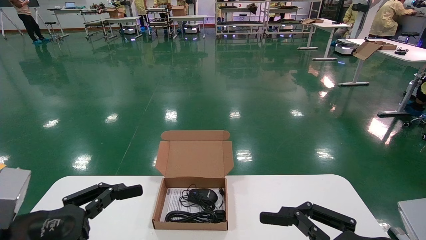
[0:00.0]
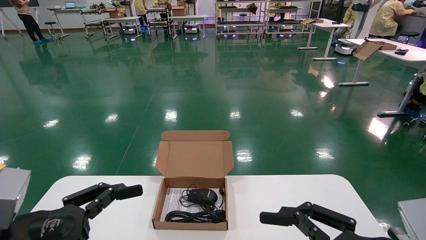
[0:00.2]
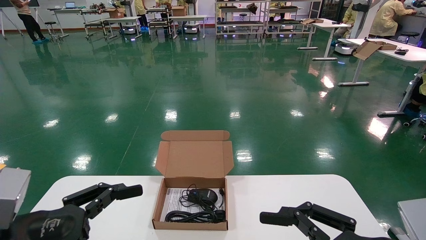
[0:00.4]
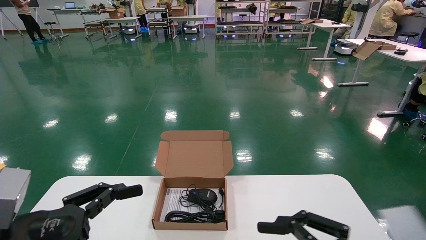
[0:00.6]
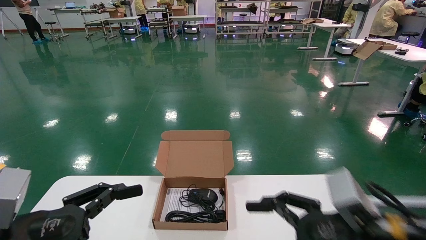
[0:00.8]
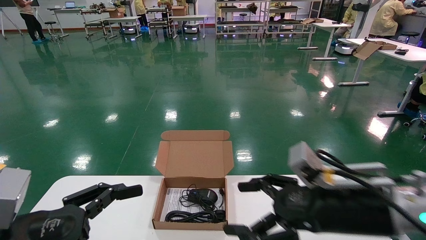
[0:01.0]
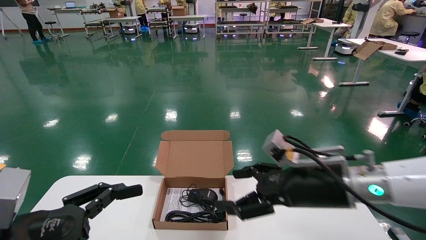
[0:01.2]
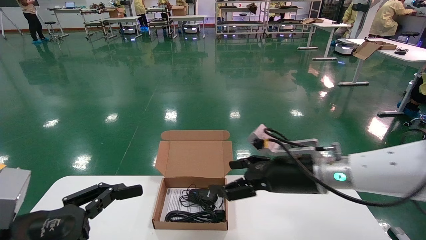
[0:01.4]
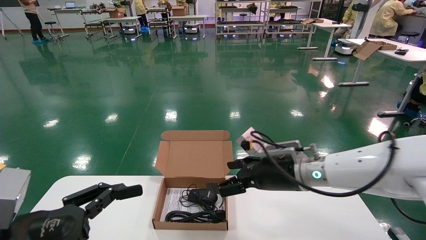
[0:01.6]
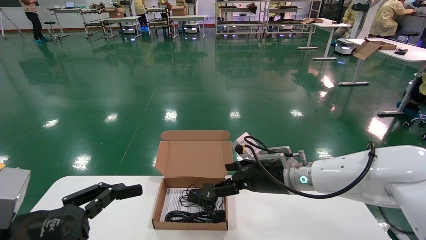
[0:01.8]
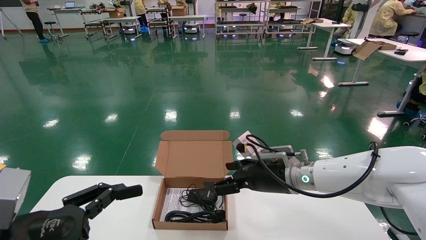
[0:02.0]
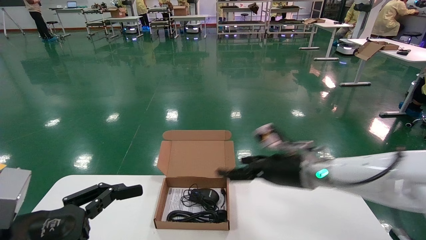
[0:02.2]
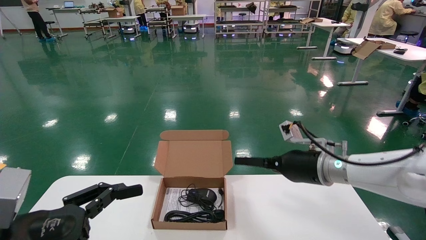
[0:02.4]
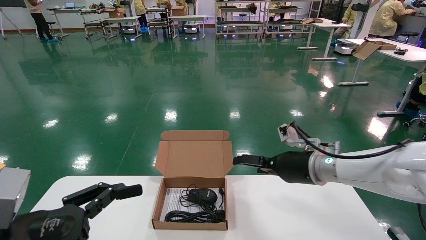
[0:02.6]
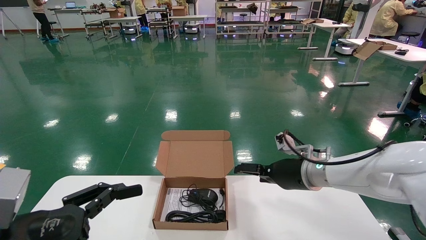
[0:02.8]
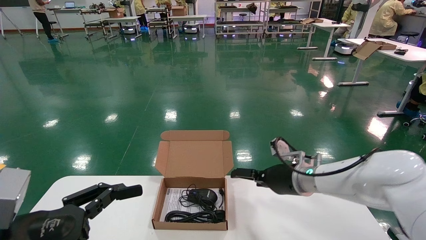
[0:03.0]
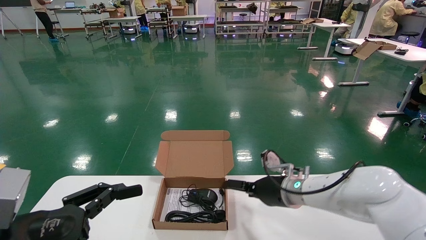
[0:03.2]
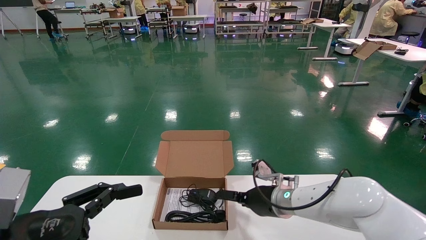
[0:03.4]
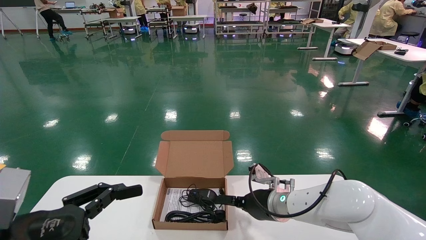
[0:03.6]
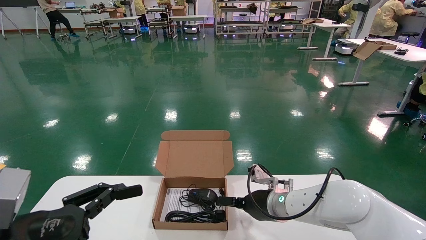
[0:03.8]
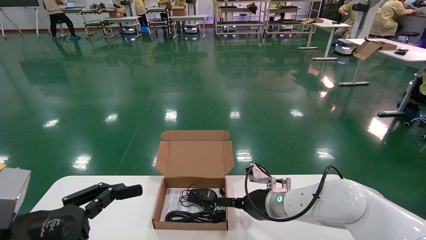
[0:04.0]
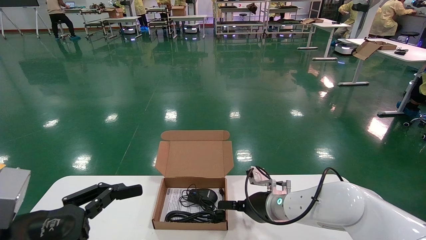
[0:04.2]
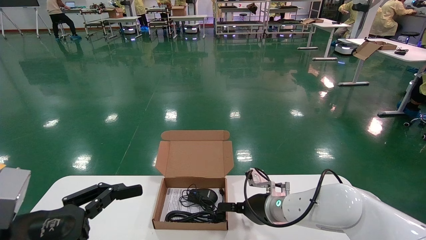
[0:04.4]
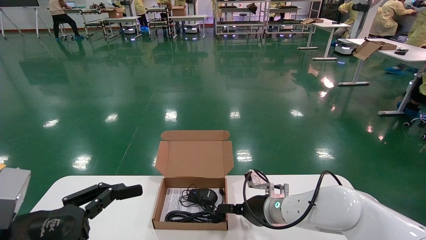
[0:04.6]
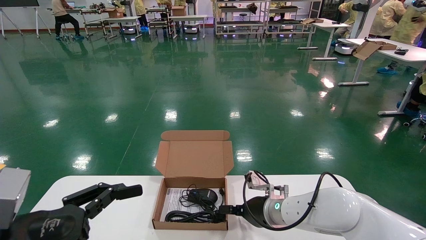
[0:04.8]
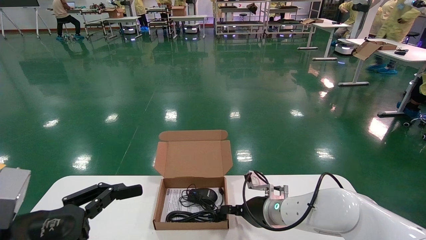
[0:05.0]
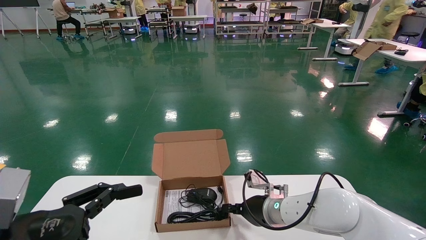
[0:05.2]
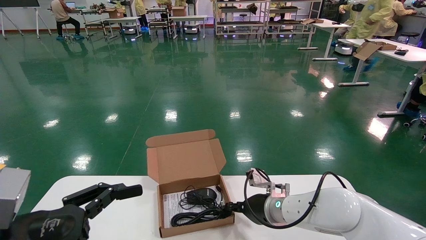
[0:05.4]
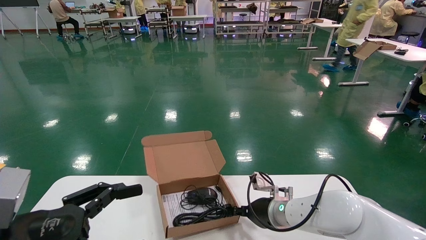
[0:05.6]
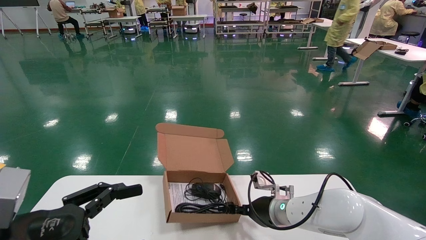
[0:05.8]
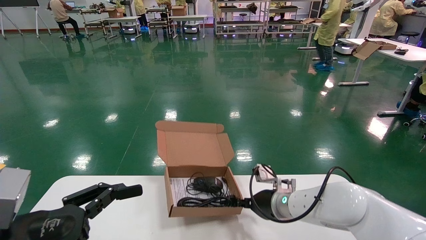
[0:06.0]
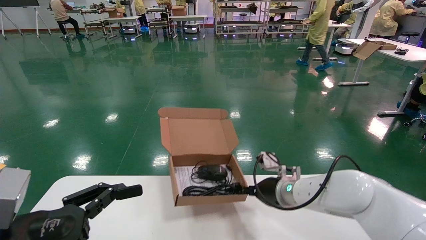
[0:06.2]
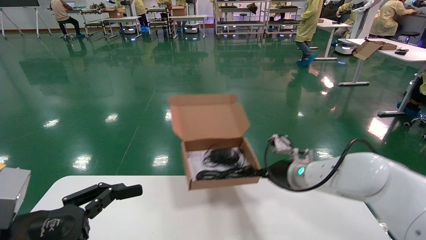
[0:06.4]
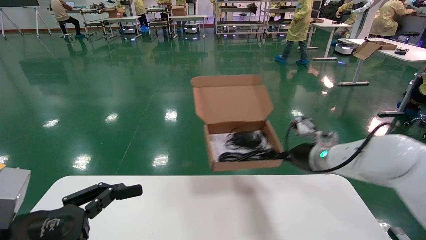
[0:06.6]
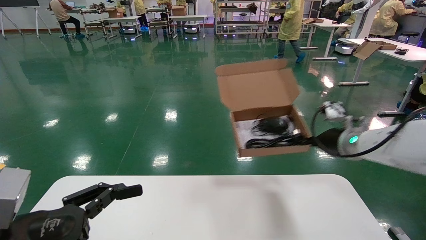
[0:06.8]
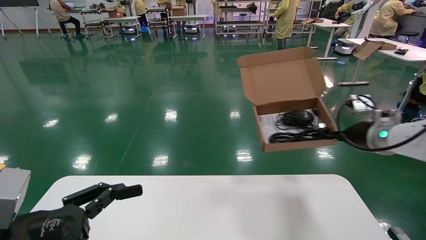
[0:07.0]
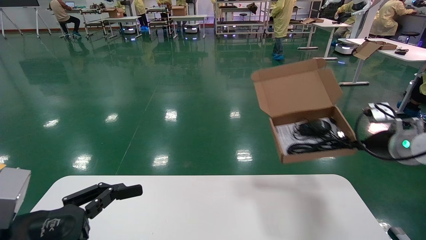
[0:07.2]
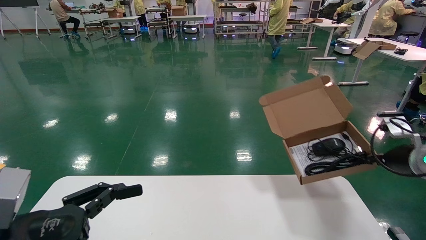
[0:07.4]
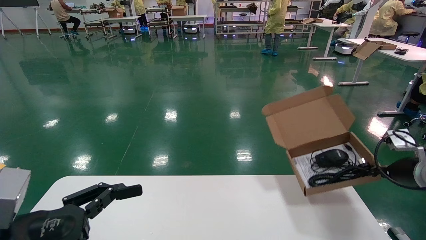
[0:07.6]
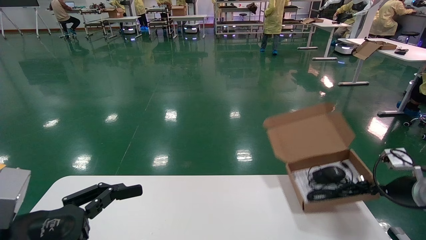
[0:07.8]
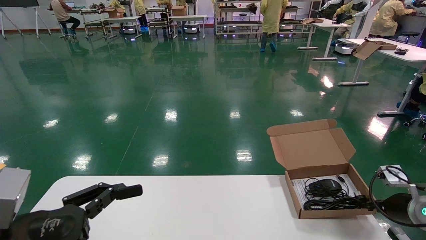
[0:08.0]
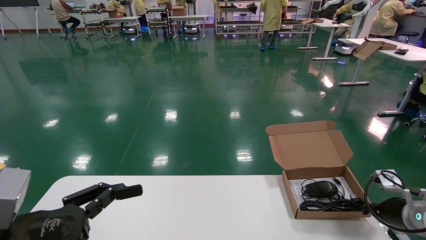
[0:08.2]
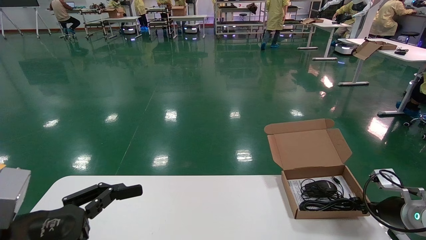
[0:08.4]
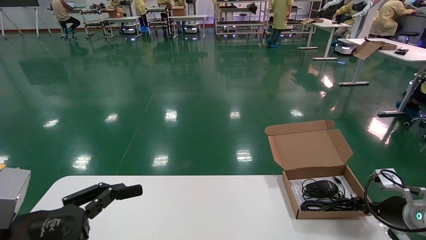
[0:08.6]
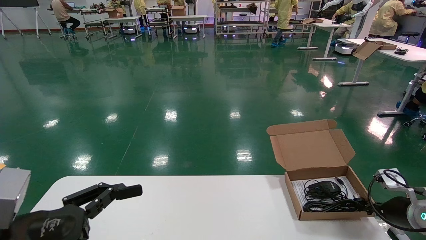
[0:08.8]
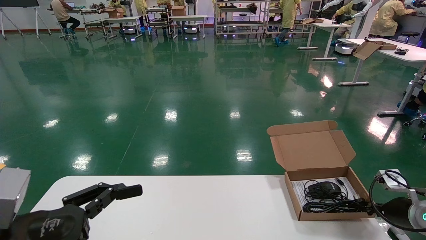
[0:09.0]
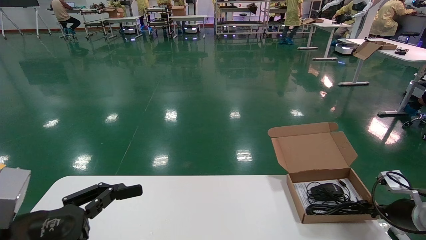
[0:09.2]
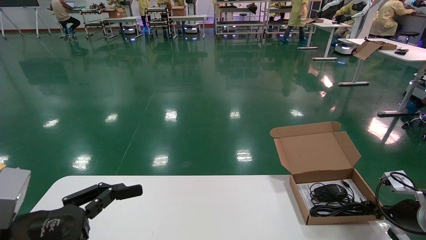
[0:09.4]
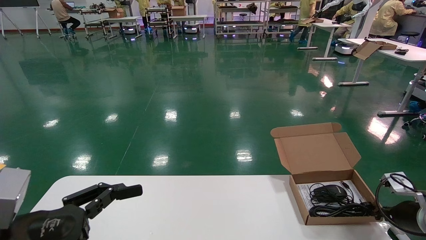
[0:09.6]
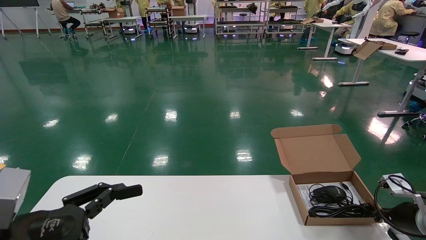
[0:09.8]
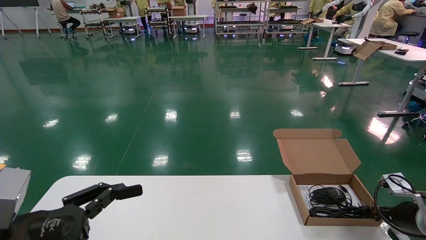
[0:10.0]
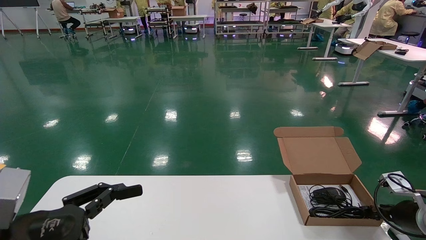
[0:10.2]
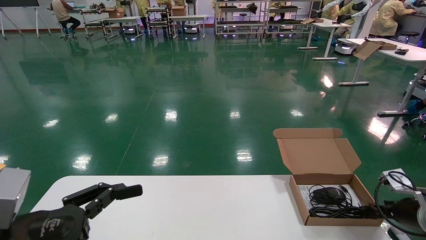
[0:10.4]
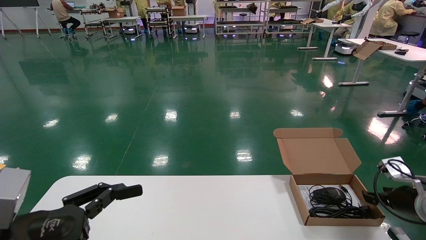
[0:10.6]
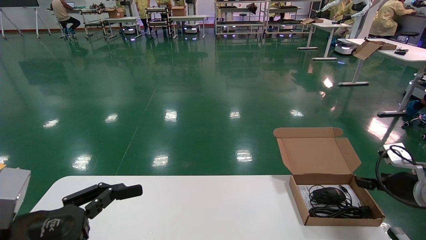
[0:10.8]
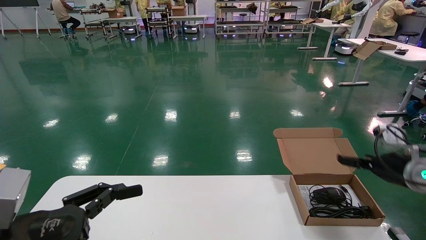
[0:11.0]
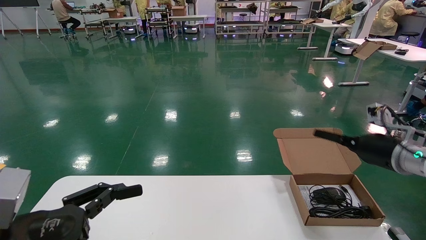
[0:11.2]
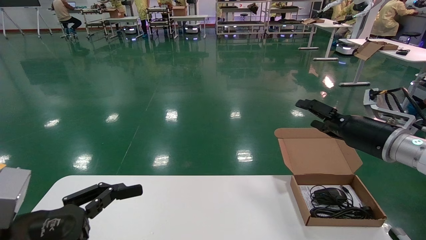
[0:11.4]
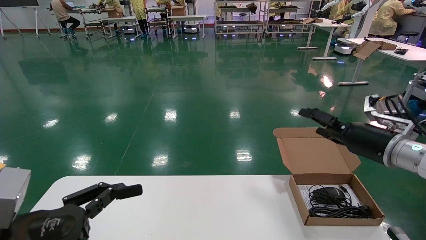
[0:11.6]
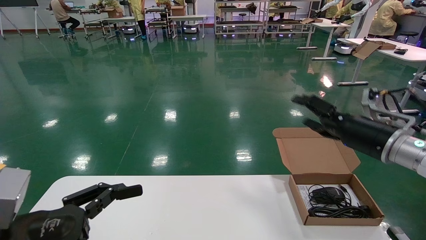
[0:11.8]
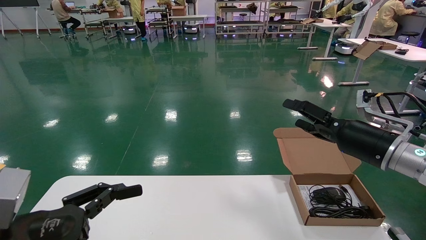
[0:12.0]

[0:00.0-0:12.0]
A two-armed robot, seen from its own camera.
Task of the whole recording: move the position of the storage box with accessories on the table.
Step, 0:00.8 to 0:05.8: Grab and pick up the open mouse box from the accessory packaging area.
Step, 0:06.0 to 0:10.4: Place the open mouse box onto the operation table.
0:00.0 to 0:01.6: The right gripper shifts some 25 cm forward and to the left.
0:01.6 to 0:03.0: The right gripper goes about 5 cm forward.
0:03.0 to 0:04.4: The right gripper is displaced downward and to the left by some 10 cm.
0:04.4 to 0:06.0: The right gripper closes.
0:06.0 to 0:07.6: The right gripper goes some 30 cm to the right.
0:07.6 to 0:09.0: The right gripper shifts approximately 10 cm downward.
0:09.0 to 0:10.4: The grippers stay close to where they were, moving slightly.
0:10.4 to 0:12.0: The right gripper heads to the left and upward, covering roughly 20 cm, and opens up.

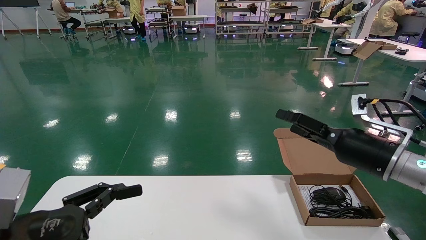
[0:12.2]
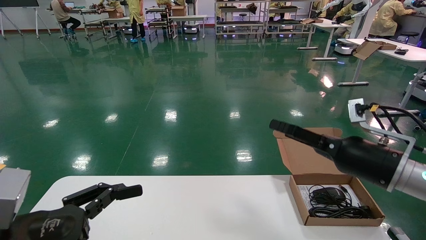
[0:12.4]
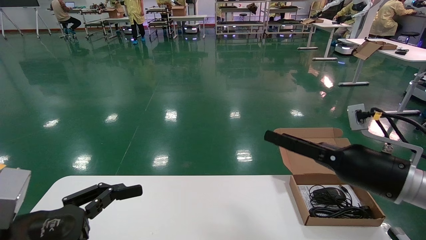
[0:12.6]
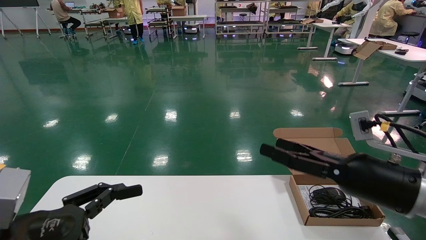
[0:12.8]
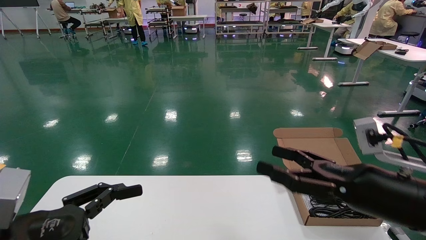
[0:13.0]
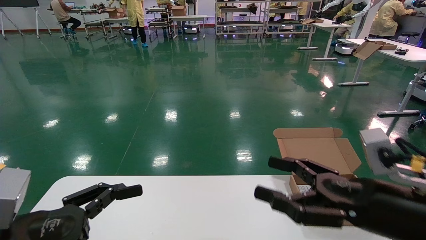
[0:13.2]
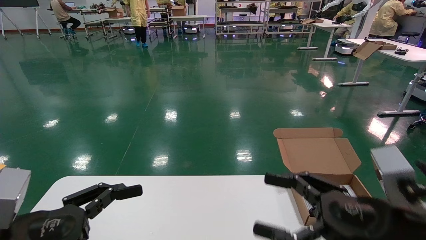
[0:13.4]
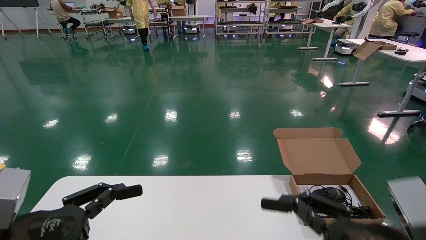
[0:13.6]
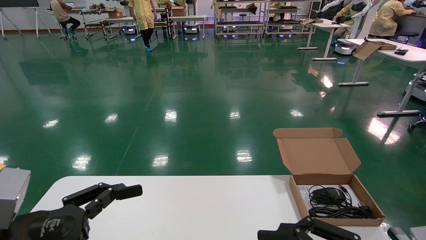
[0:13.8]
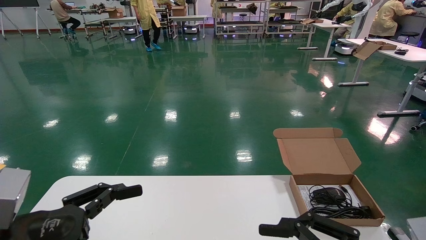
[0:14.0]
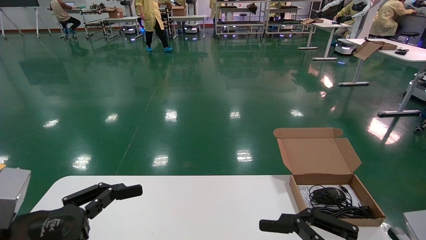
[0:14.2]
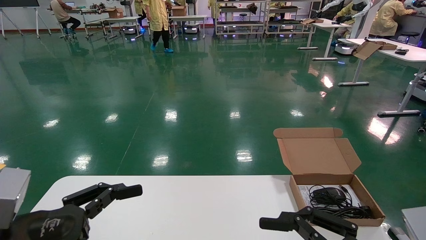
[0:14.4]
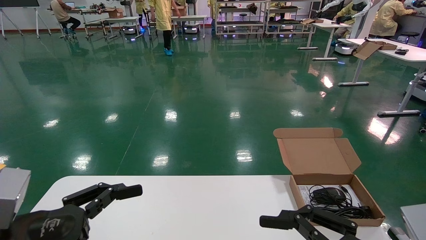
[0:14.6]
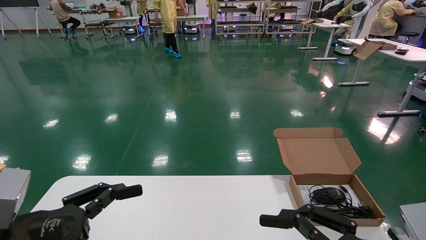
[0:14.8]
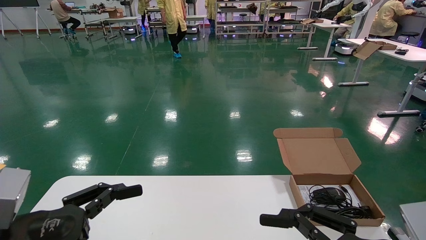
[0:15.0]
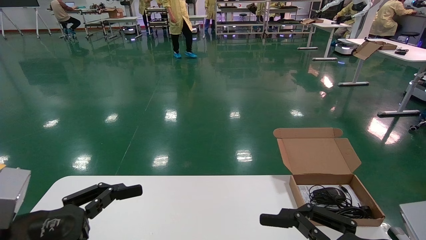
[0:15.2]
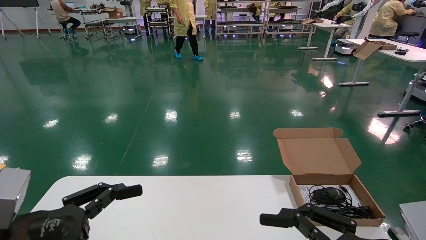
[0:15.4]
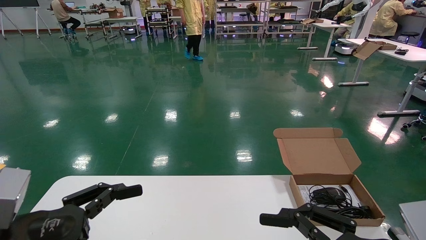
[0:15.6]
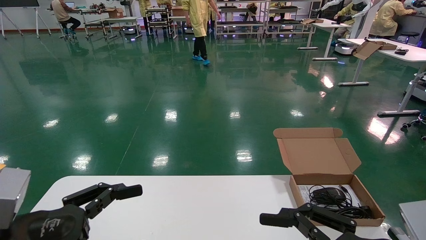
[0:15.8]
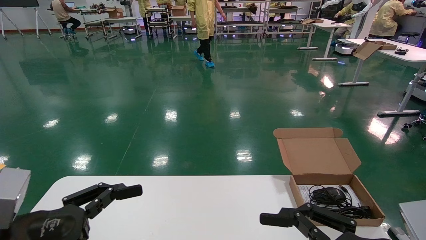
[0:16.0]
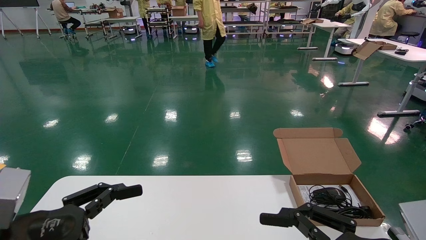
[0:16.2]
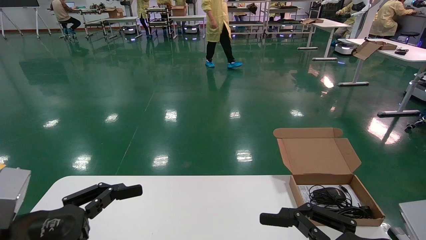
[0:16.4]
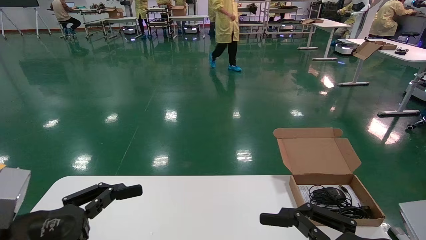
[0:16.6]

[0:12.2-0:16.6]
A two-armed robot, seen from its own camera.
Task of the whole recording: move the position of the storage box with accessories on the table.
0:12.2 to 0:13.6: The right gripper heads backward, covering roughly 20 cm.
0:13.6 to 0:15.2: The grippers stay close to where they were, moving slightly.
0:15.2 to 0:16.6: Both grippers stay put.
